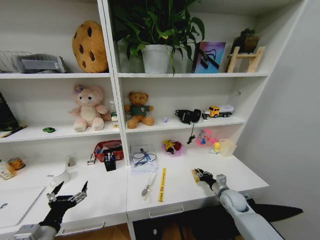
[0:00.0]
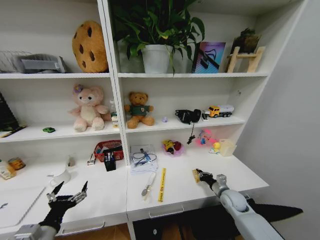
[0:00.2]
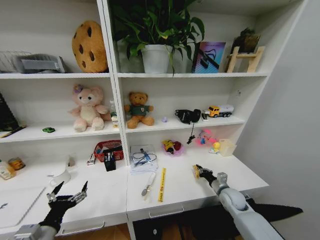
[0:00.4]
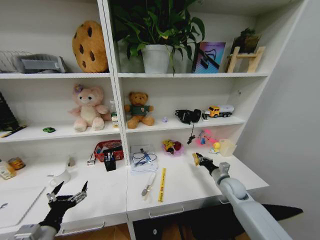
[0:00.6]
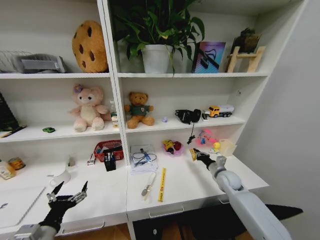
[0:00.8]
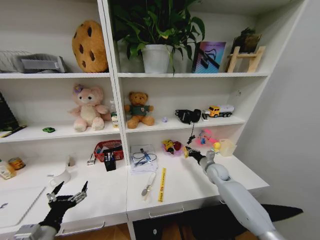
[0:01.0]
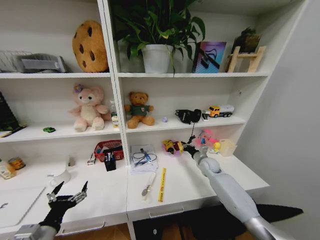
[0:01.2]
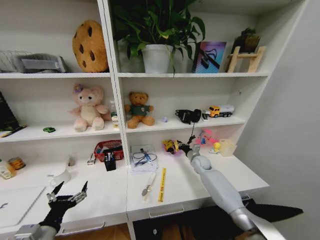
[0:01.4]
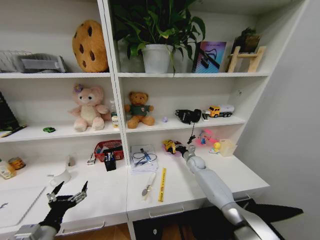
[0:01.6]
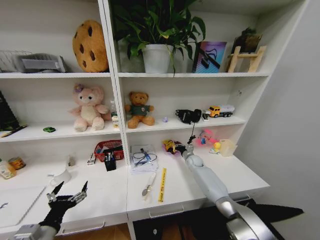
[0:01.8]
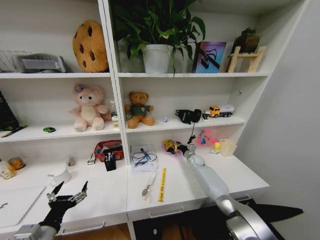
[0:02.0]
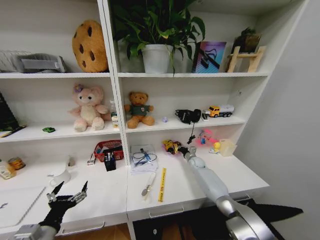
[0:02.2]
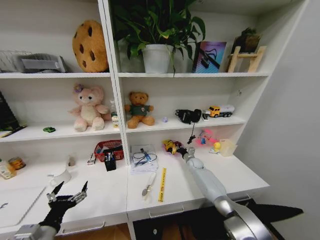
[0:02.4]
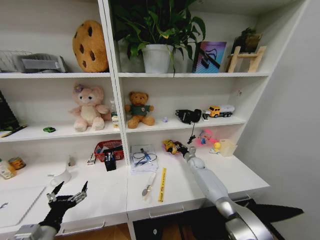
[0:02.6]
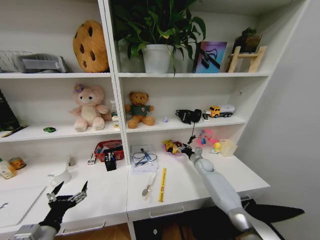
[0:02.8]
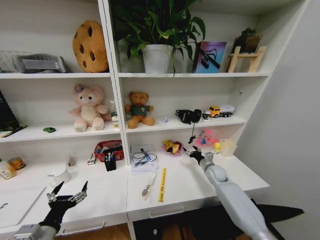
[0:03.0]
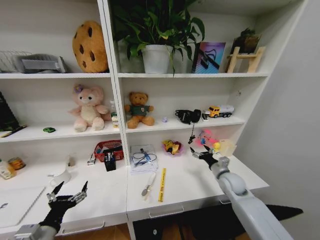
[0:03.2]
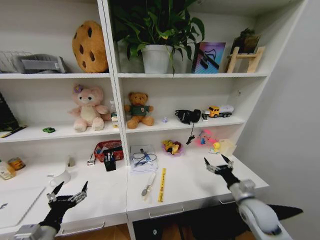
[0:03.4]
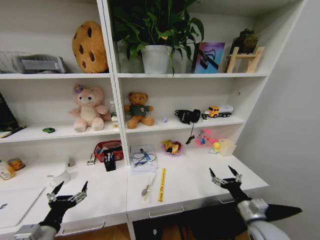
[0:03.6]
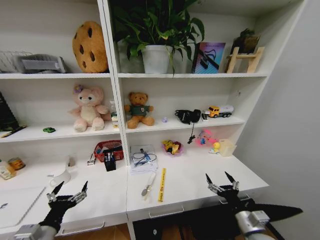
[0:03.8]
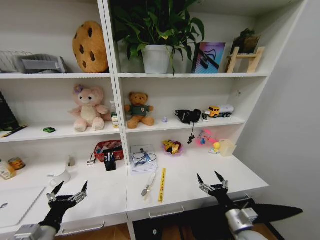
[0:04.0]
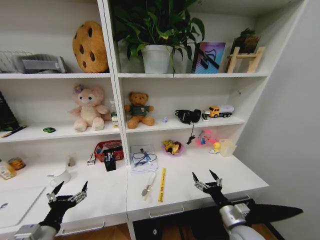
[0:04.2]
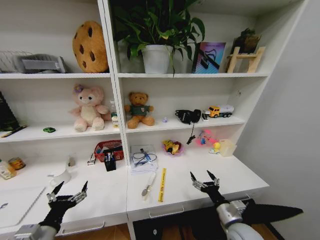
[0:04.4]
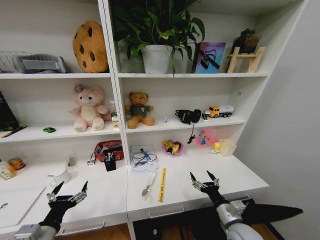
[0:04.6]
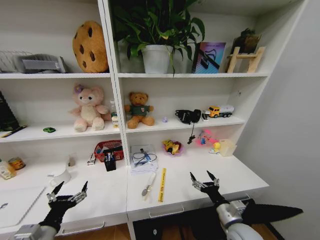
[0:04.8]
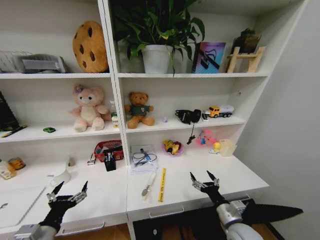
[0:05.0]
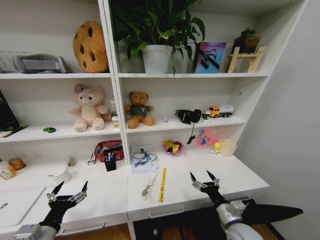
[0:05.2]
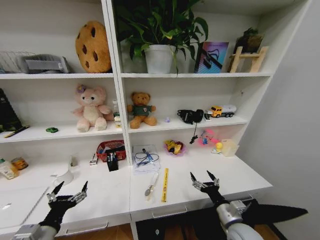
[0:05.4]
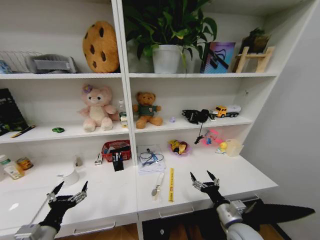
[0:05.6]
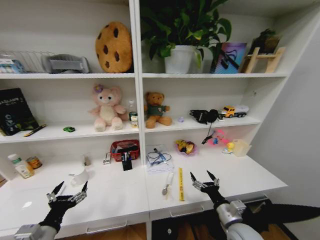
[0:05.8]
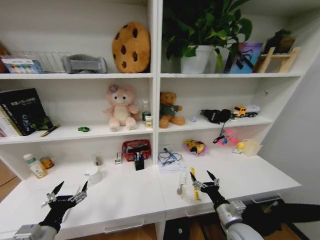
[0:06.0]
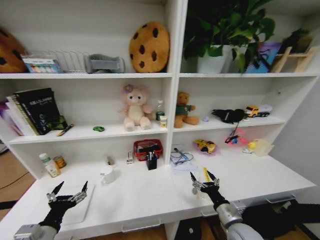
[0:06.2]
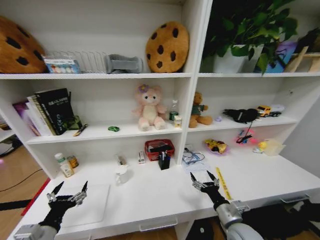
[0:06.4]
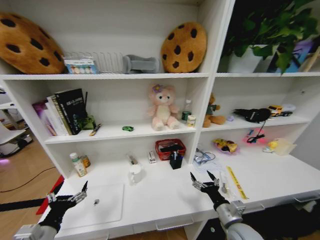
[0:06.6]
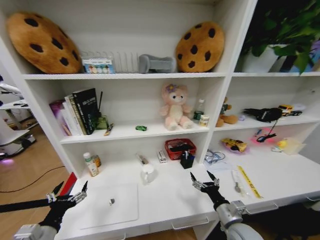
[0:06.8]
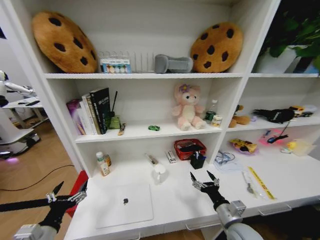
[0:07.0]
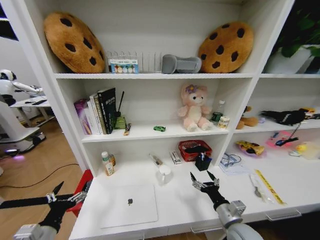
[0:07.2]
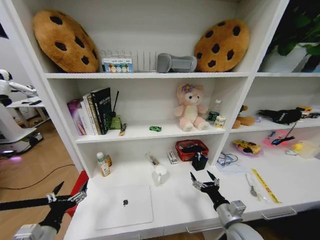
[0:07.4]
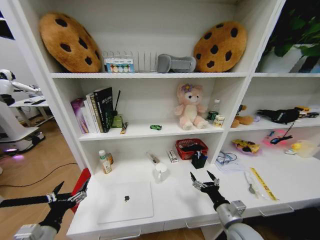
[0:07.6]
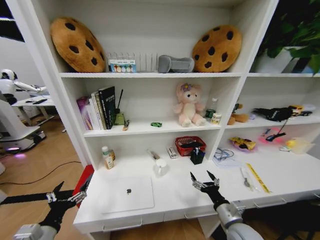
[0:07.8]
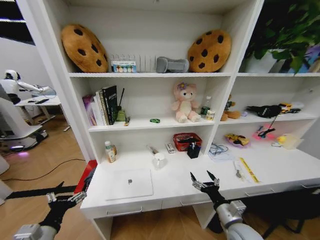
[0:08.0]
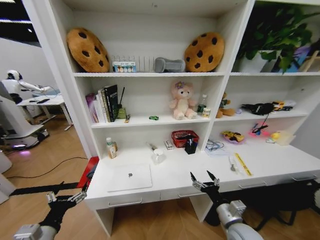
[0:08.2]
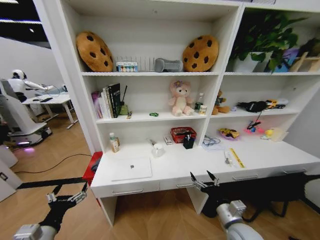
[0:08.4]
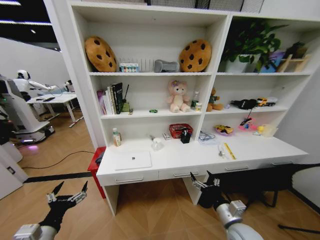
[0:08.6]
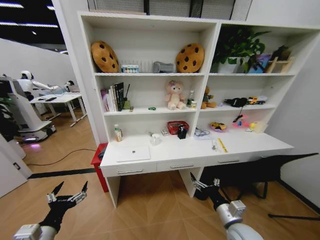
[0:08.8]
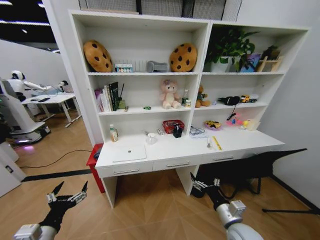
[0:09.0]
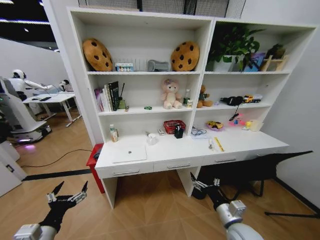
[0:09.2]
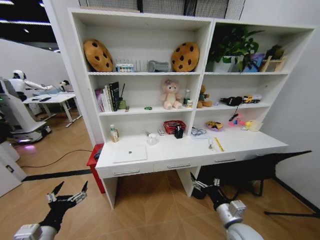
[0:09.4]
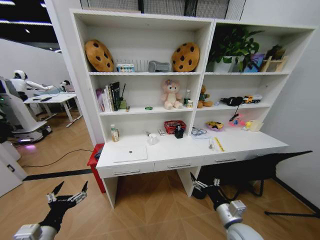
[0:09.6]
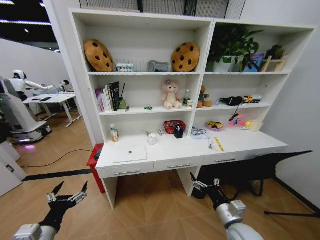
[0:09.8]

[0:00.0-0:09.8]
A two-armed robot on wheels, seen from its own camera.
Task of the whole recording: Organize the objects on the table.
0:00.0 to 0:01.4: The right gripper heads forward and to the left, covering some 20 cm.
0:01.4 to 0:02.8: The right gripper opens.
0:02.8 to 0:04.2: The right gripper moves backward, about 35 cm, and opens its fingers.

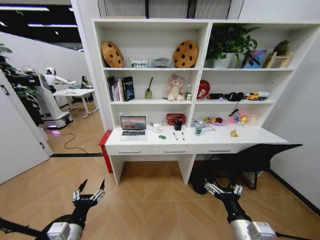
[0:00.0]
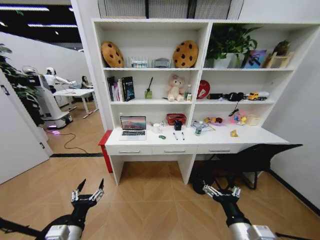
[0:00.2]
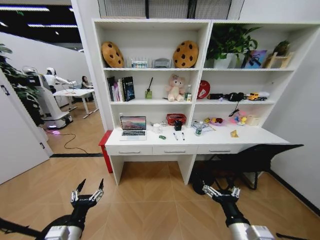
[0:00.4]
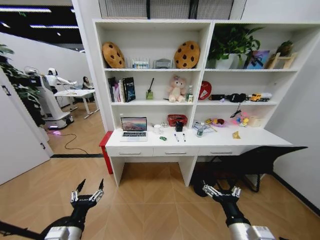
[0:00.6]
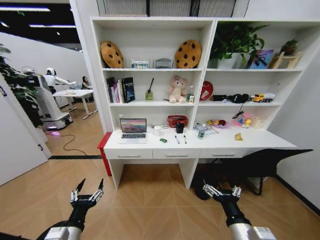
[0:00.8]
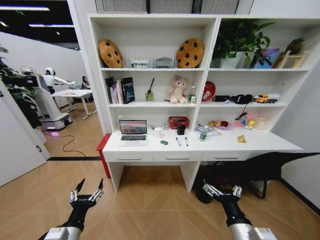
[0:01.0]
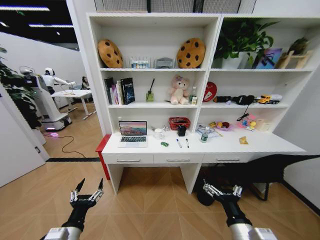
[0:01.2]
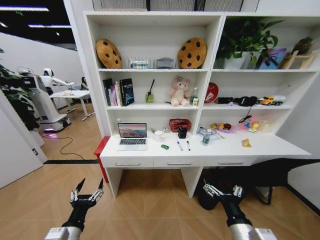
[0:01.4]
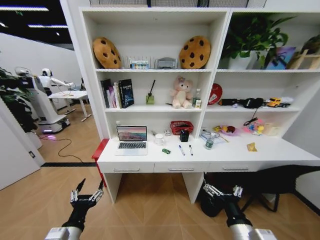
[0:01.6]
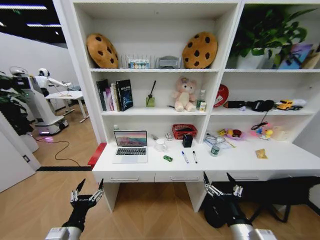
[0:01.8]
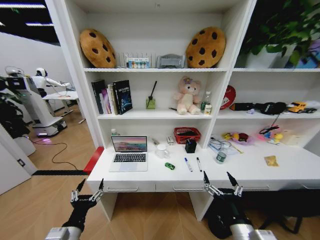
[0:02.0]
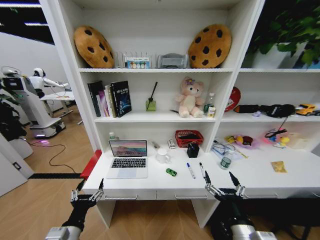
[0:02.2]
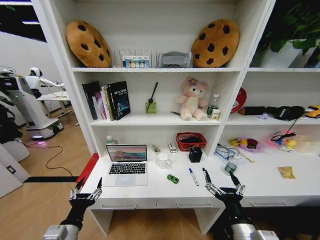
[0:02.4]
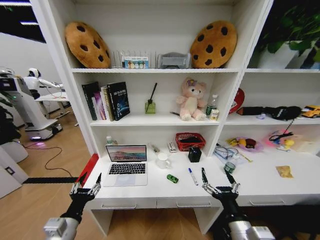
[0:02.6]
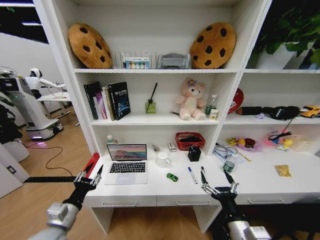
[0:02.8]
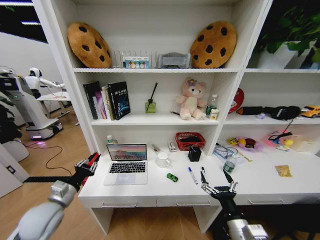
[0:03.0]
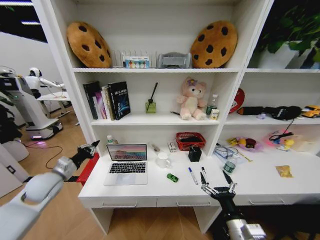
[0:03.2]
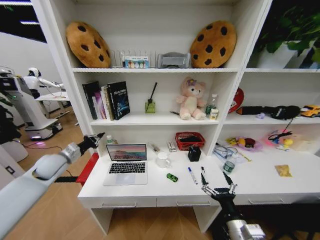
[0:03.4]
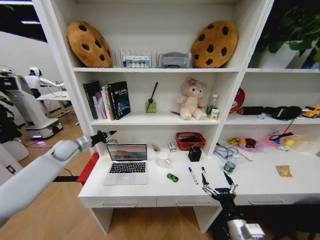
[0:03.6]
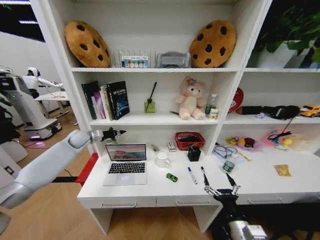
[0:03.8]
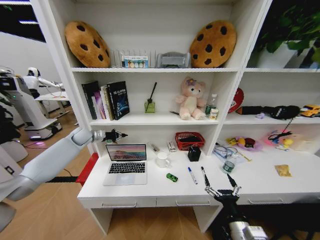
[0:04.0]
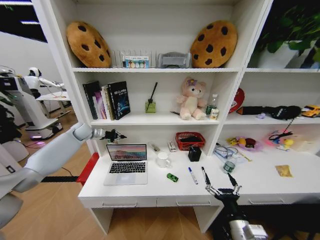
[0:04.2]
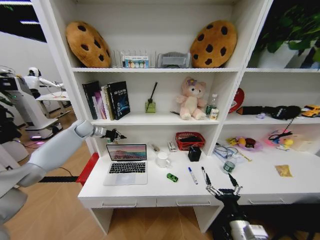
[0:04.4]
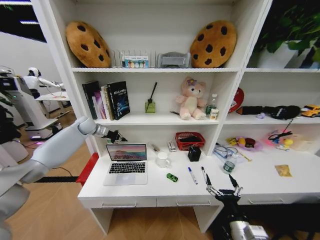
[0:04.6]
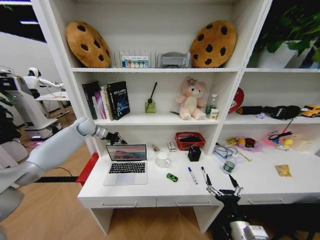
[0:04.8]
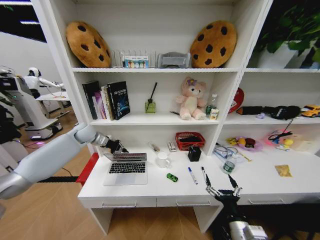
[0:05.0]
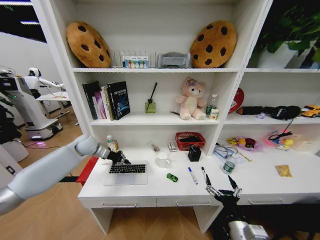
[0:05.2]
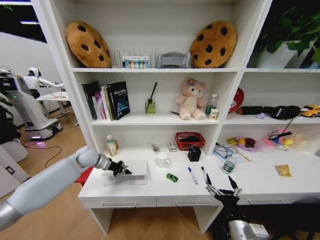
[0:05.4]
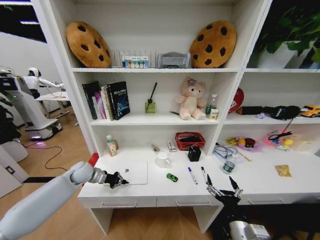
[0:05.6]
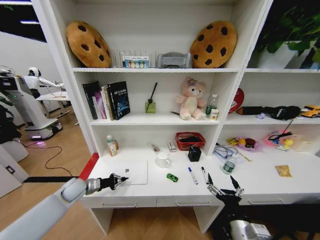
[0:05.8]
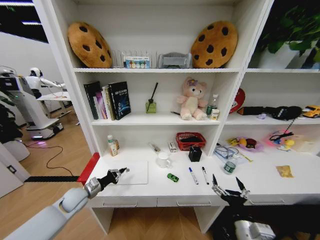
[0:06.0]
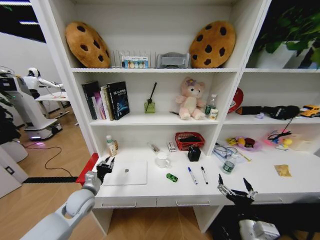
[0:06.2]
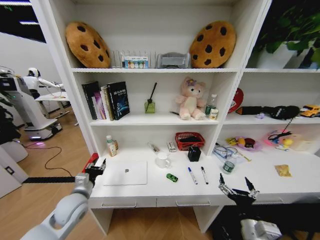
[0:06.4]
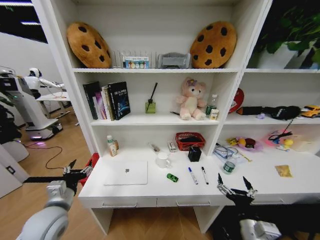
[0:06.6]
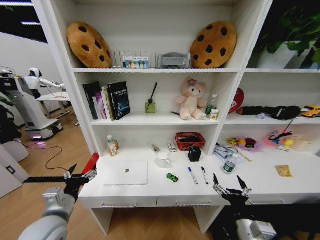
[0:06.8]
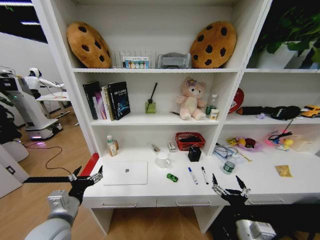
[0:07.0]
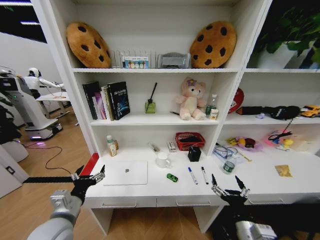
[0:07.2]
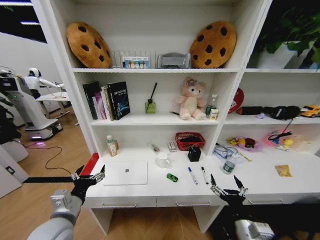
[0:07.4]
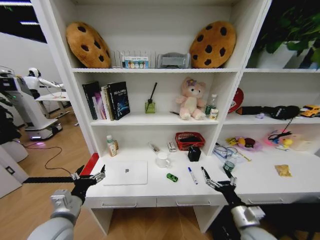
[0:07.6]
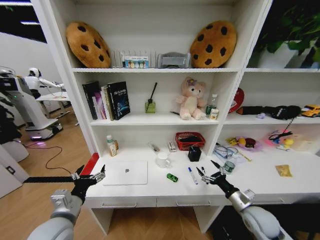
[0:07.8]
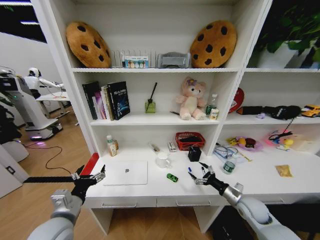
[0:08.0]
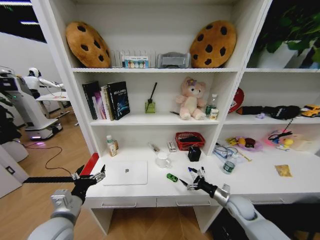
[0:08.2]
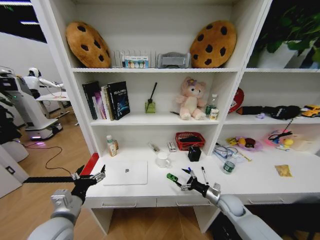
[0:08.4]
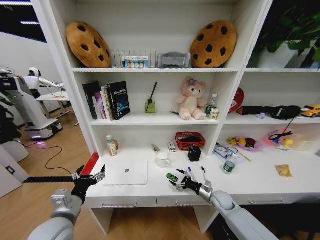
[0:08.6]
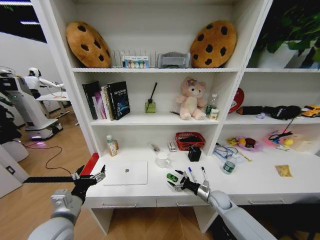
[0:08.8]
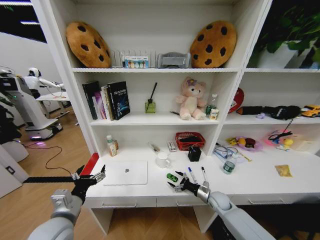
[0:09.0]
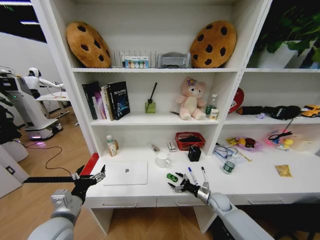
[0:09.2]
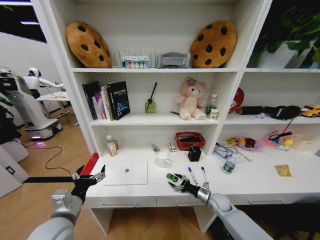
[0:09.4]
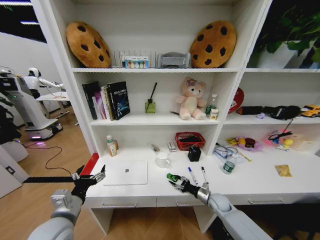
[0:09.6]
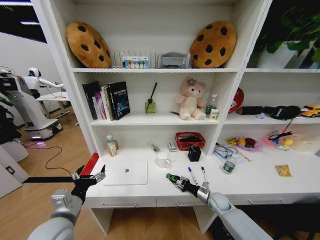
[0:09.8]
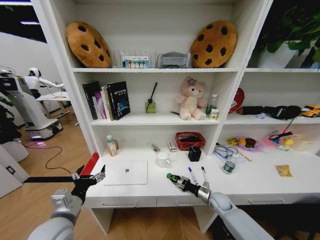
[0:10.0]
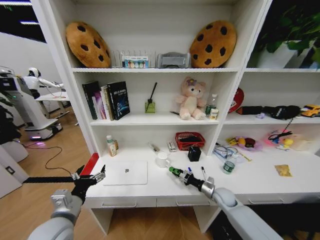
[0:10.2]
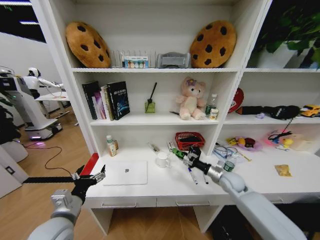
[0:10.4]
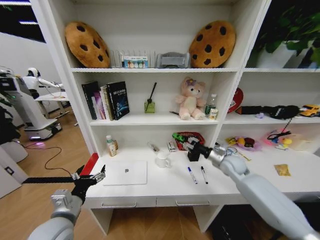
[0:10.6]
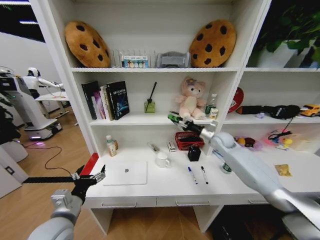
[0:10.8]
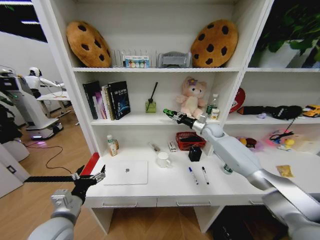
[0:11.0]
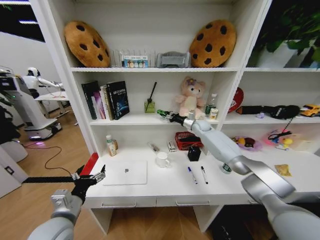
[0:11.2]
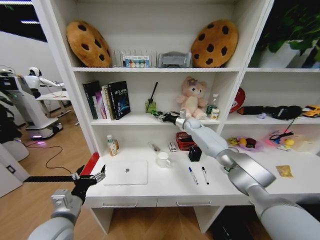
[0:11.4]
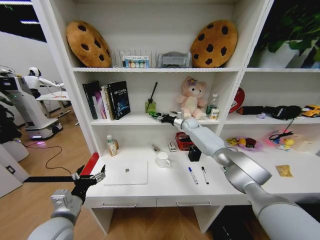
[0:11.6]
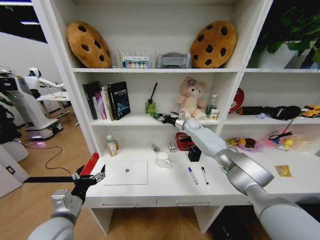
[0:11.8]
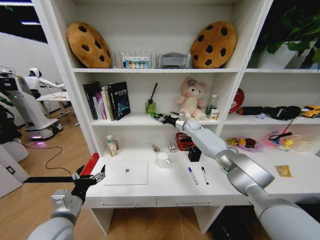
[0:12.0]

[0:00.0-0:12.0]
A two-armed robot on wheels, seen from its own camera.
Task of the whole recording: Organize the objects on the table.
0:01.6 to 0:03.0: The left gripper heads forward and to the left, covering some 15 cm, and closes.
0:03.0 to 0:04.4: The left gripper is displaced forward by some 35 cm.
0:04.4 to 0:06.0: The left gripper moves backward and downward, about 35 cm.
0:06.0 to 0:07.6: The left gripper moves backward, upward and to the right, roughly 20 cm, and opens up; the right gripper moves approximately 5 cm.
0:07.6 to 0:09.0: The right gripper travels forward and downward by roughly 20 cm.
0:09.0 to 0:10.4: The right gripper heads upward, covering roughly 15 cm, and closes.
0:10.4 to 0:12.0: The right gripper is displaced forward, upward and to the left by approximately 35 cm.
